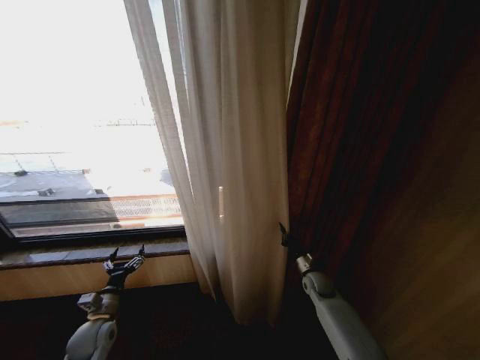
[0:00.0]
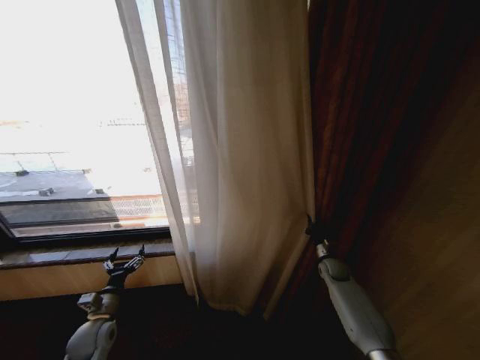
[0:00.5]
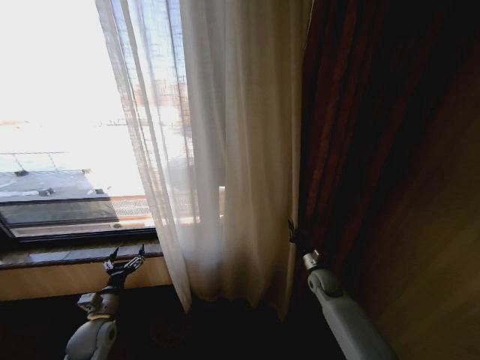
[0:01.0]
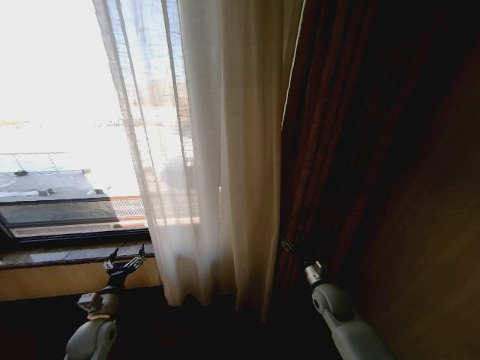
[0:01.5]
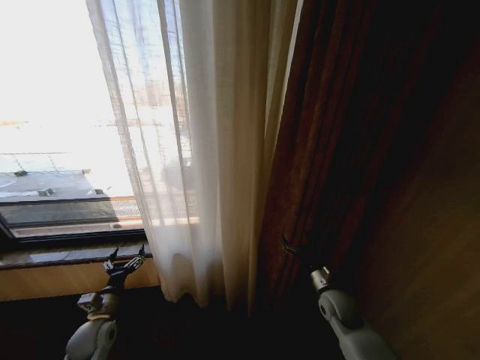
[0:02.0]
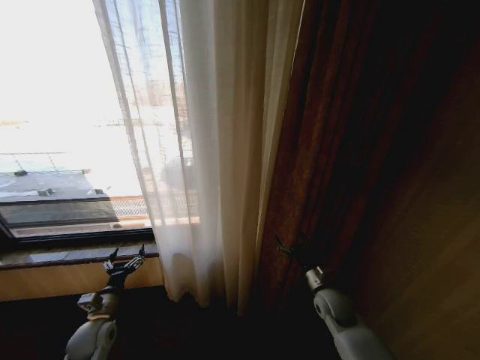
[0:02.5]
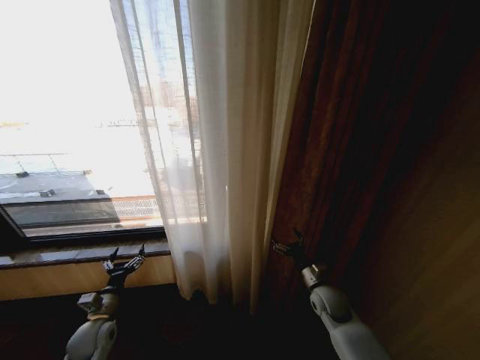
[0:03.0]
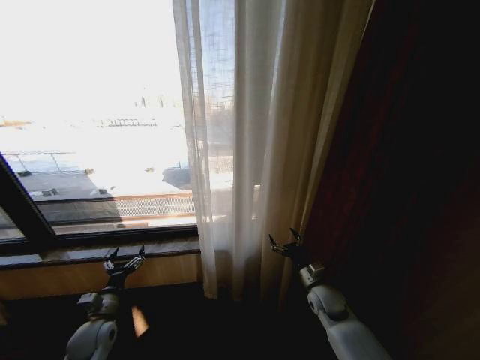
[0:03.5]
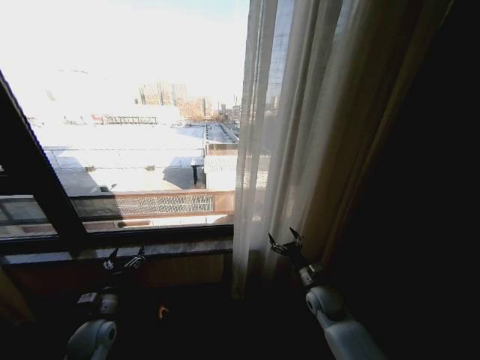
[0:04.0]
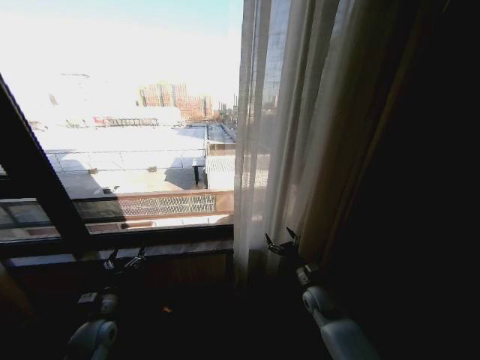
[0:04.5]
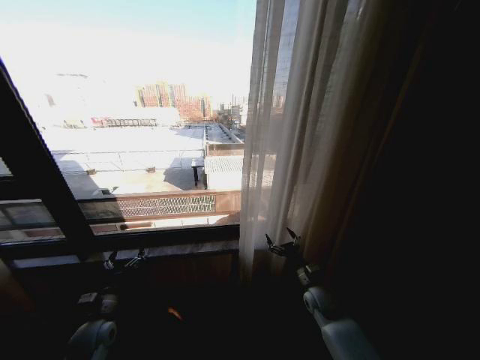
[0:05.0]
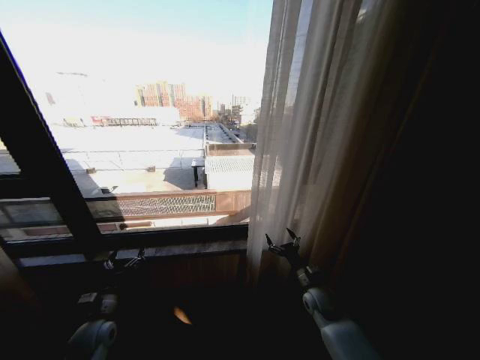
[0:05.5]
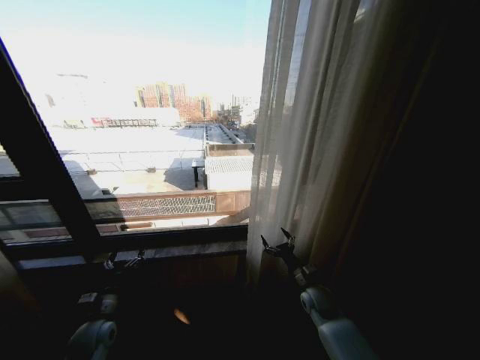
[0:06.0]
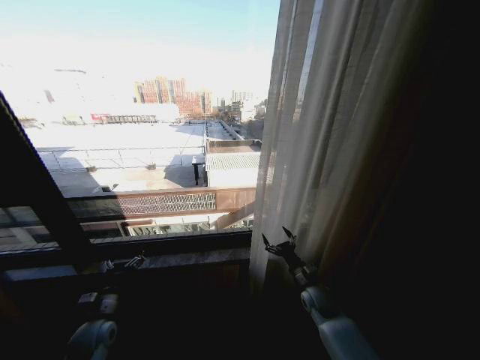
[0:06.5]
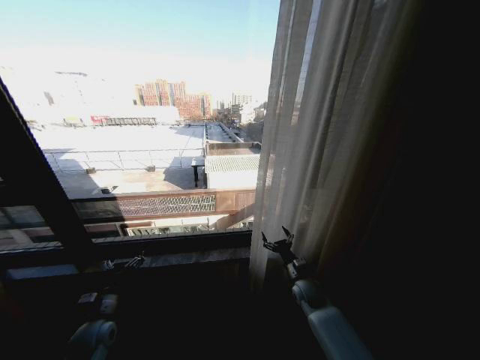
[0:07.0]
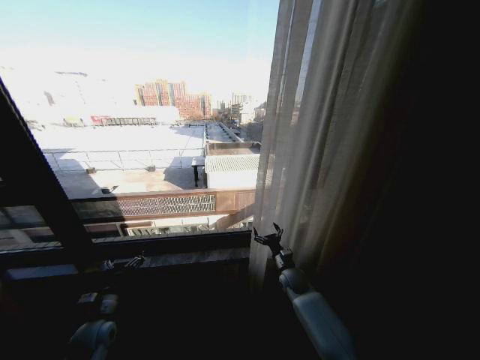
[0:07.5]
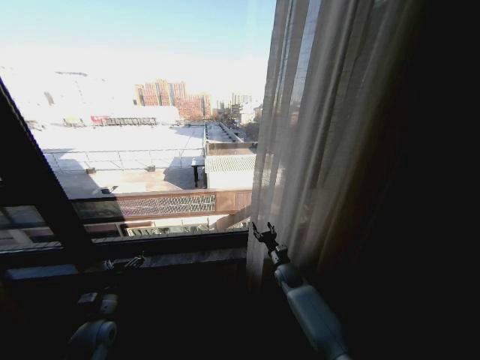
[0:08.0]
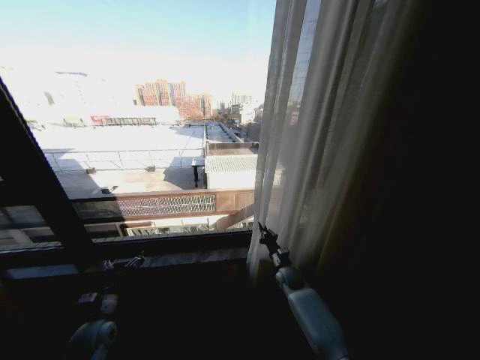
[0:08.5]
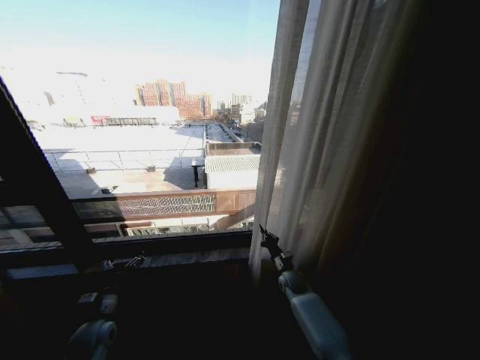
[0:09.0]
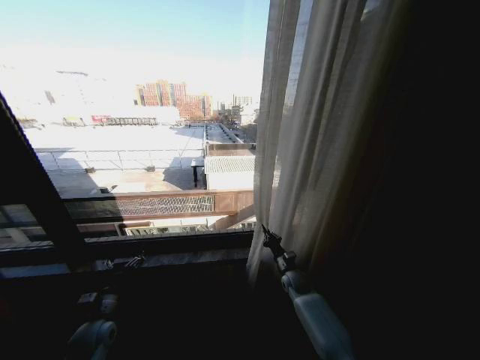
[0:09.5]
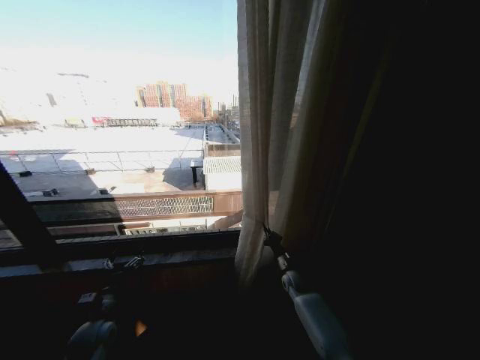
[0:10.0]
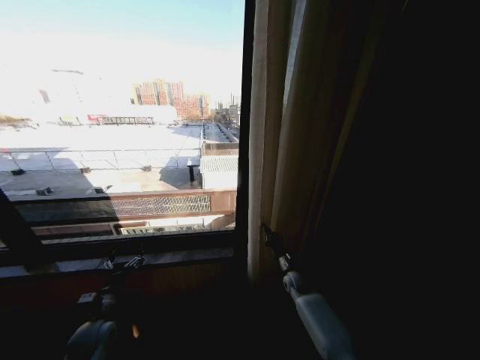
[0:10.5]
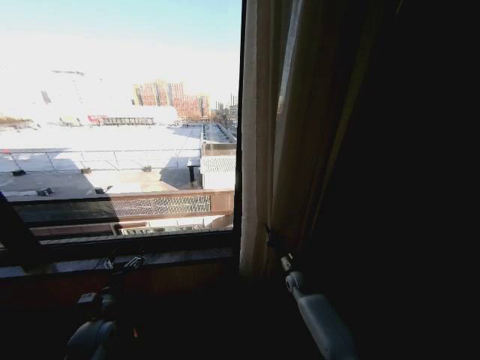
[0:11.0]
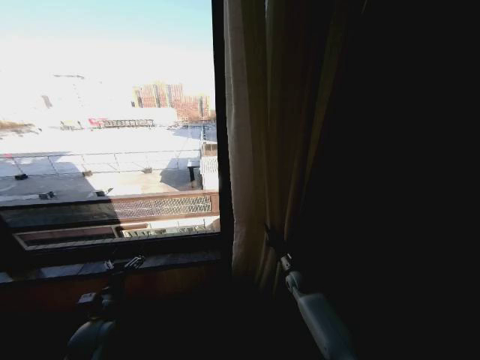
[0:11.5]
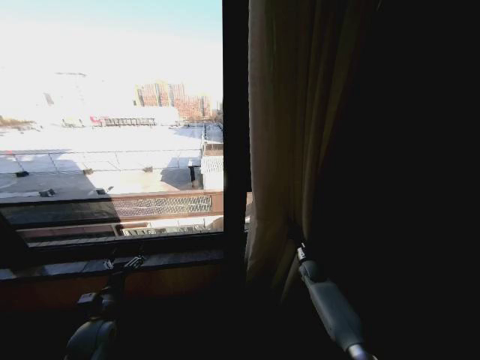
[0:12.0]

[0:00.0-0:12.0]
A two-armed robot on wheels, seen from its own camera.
Task of the whole recording: Open the curtains by pulling them apart, changing their state from closed to fully open.
0:00.0 to 0:02.0: The right gripper goes approximately 10 cm backward and upward, and opens its fingers.
0:04.0 to 0:06.0: There are only small adjustments of the grippers.
0:06.0 to 0:08.0: The right gripper is displaced forward and to the left by approximately 10 cm.
0:08.0 to 0:10.0: The right gripper closes its fingers.
0:10.0 to 0:12.0: The right gripper moves to the right, approximately 10 cm.

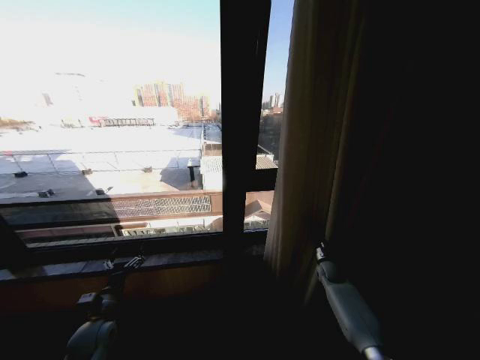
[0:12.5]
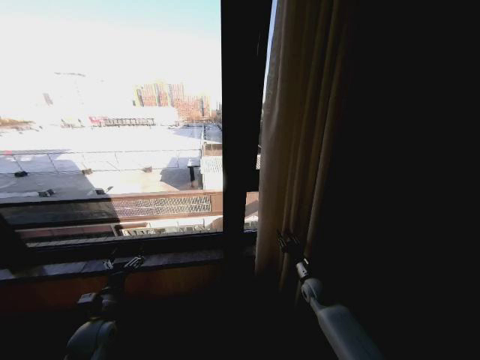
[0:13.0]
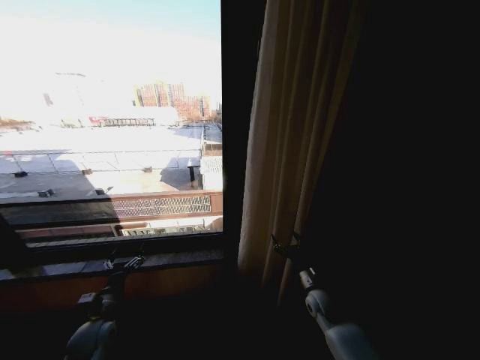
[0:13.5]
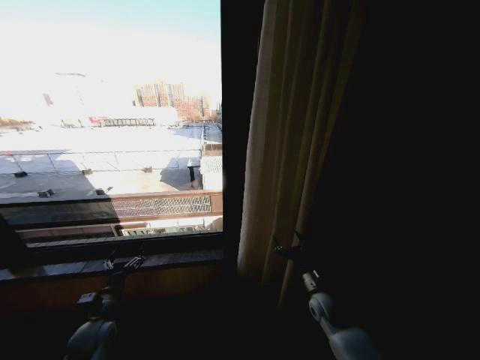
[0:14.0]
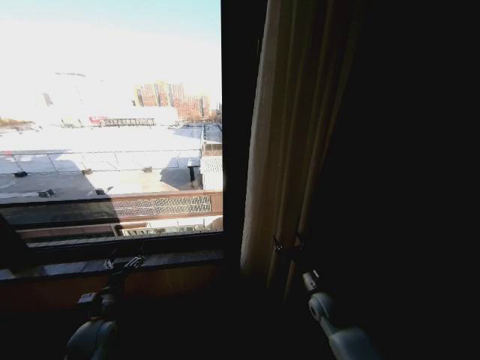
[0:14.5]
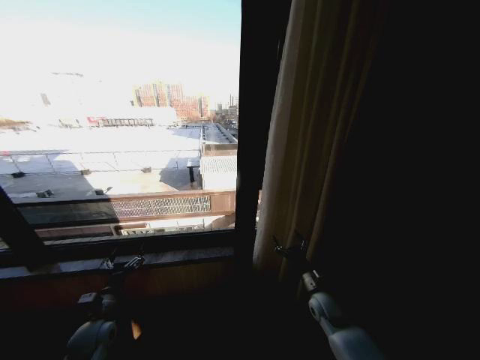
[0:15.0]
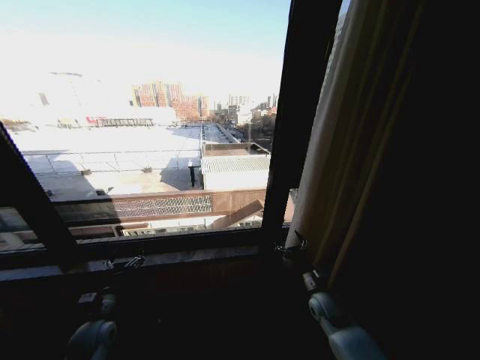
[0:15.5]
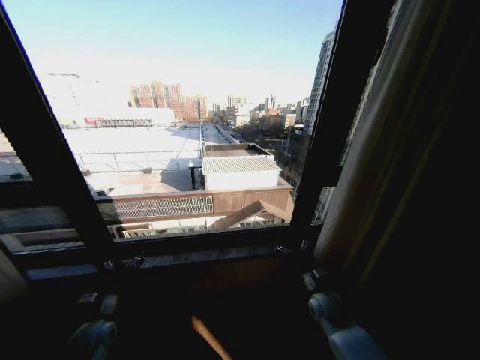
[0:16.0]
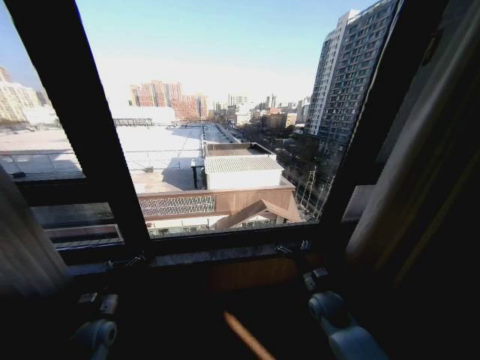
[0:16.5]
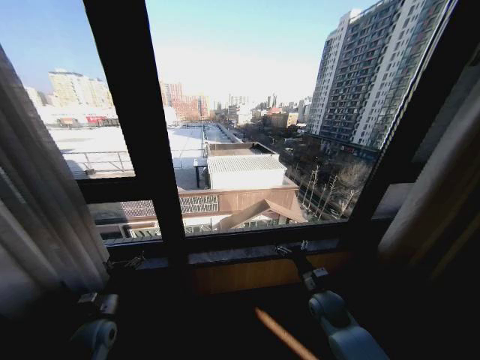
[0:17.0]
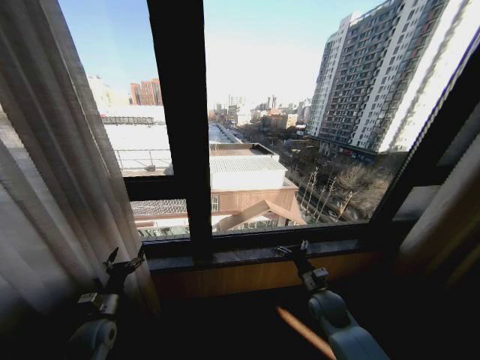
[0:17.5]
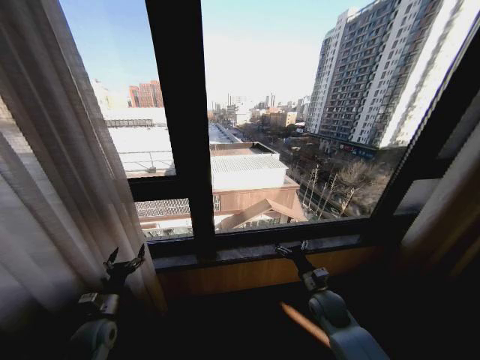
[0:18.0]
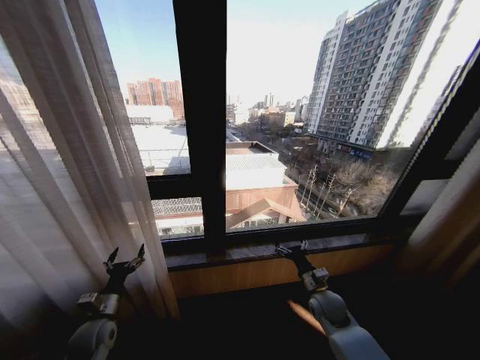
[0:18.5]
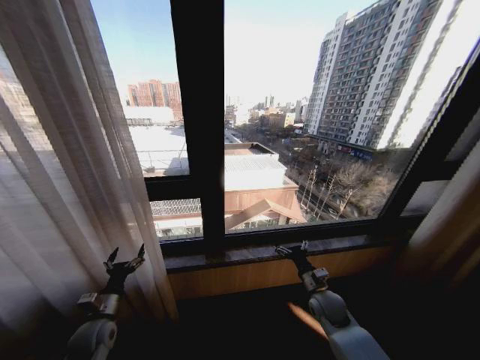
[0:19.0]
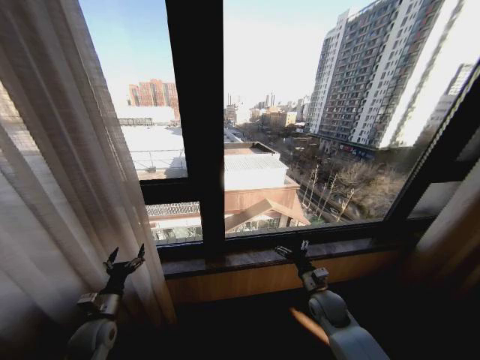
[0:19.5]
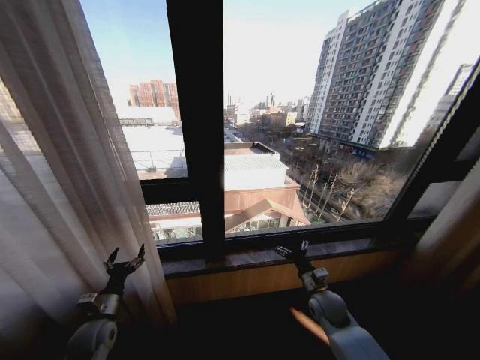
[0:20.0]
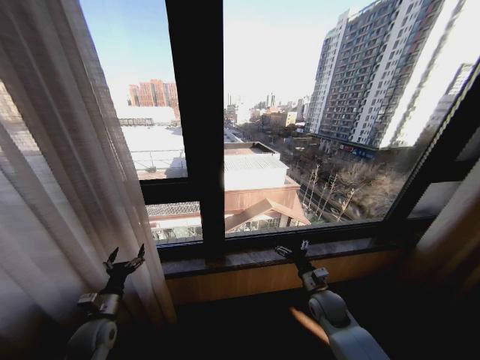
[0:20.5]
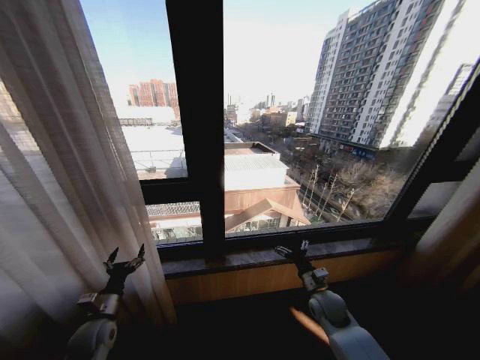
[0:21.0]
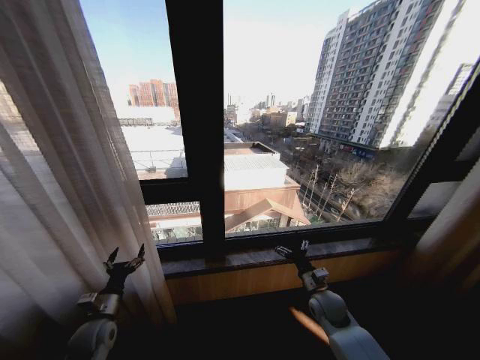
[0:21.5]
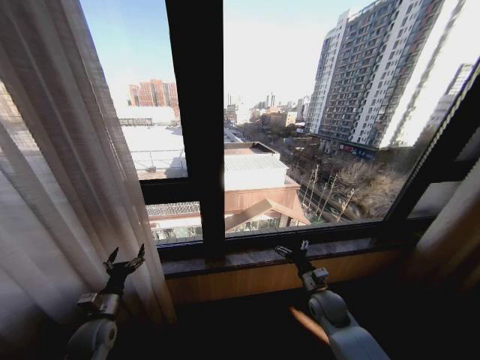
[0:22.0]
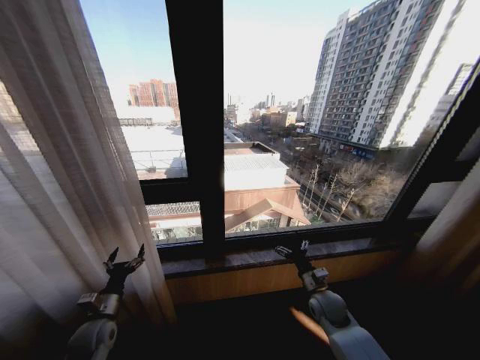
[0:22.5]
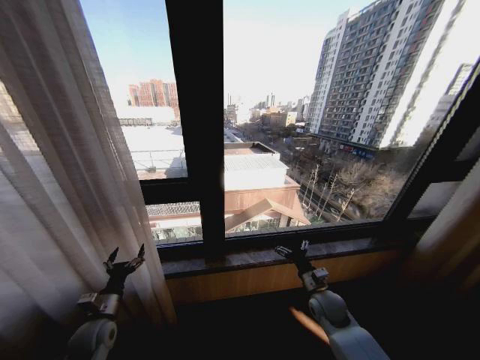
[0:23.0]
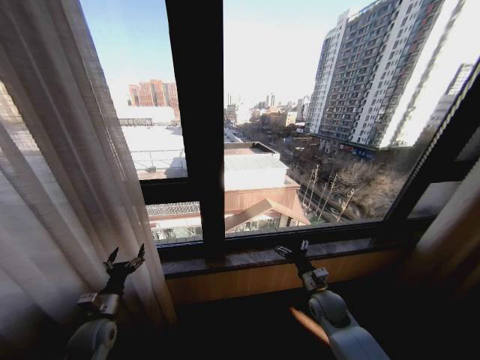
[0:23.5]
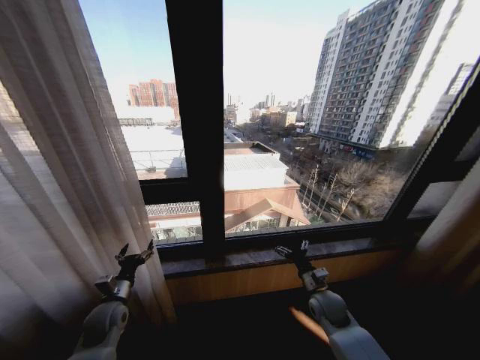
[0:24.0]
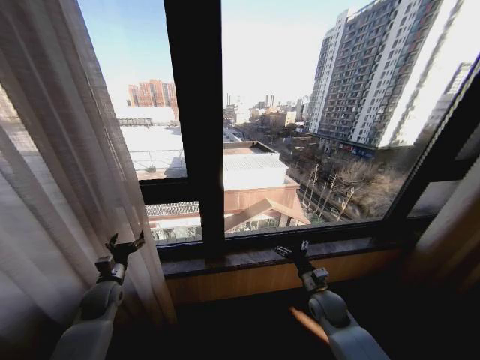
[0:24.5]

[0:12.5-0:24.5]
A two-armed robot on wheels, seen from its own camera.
Task of the whole recording: Open the curtains by pulling them apart, changing their state from closed to fully open.
0:12.5 to 0:14.5: The right gripper travels backward and to the left by about 15 cm, and opens up.
0:20.5 to 0:22.5: Both grippers stay about where they are.
0:22.5 to 0:24.5: The left gripper is displaced forward by about 10 cm.

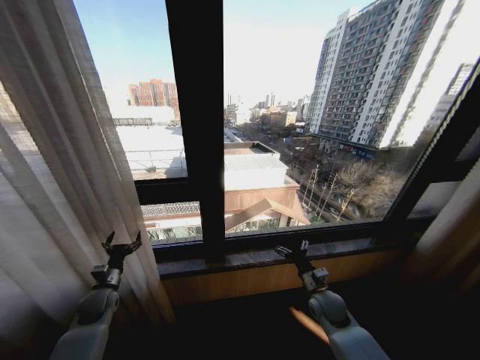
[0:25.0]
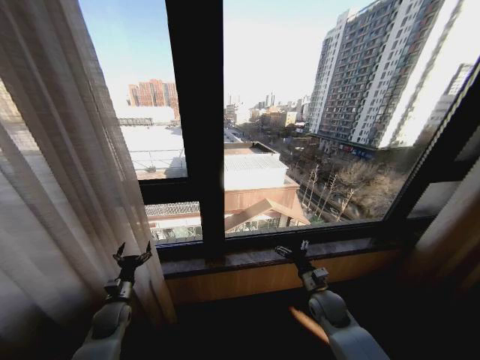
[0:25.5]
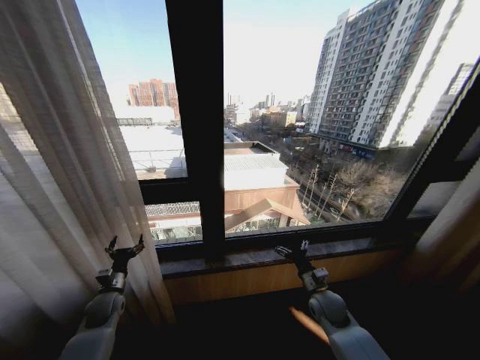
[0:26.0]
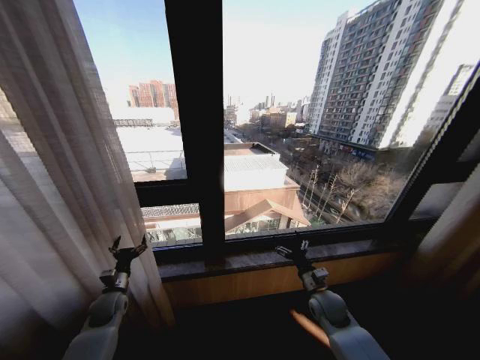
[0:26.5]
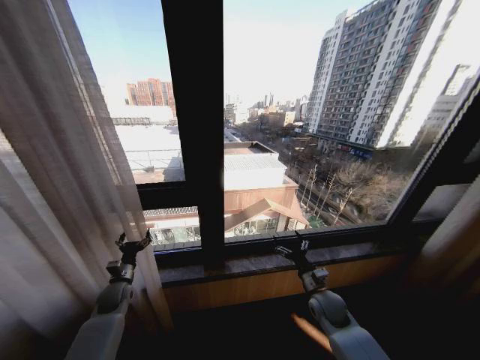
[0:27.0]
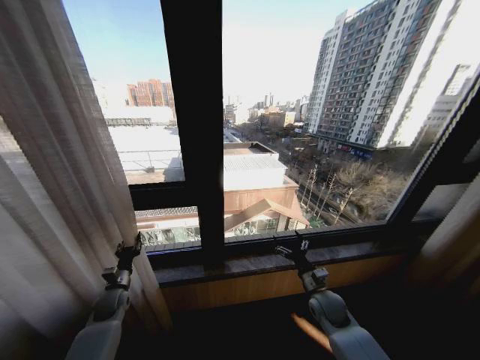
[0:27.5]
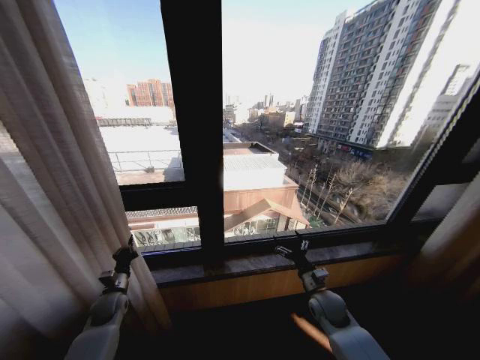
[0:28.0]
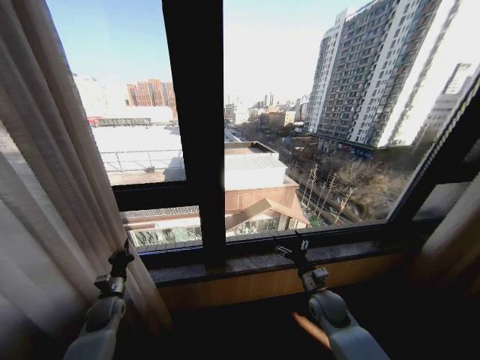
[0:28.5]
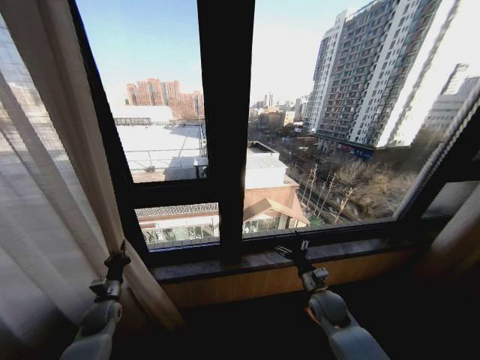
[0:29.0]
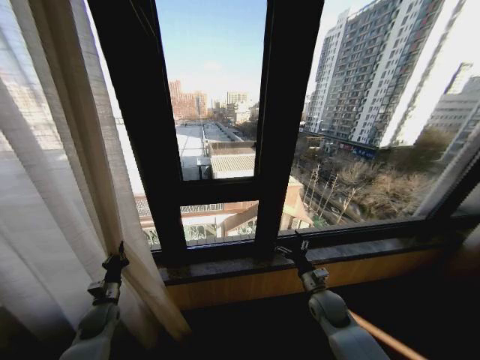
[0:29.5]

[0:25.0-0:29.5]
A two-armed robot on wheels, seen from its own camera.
Task of the whole recording: Open the curtains by pulling them apart, changing their state from closed to fully open.
0:27.0 to 0:29.5: The left gripper is displaced backward by approximately 5 cm, and closes its fingers.
